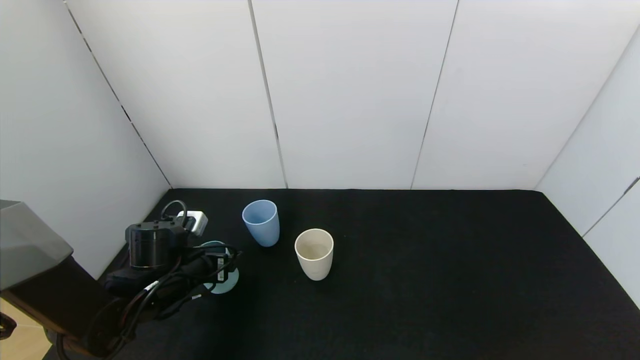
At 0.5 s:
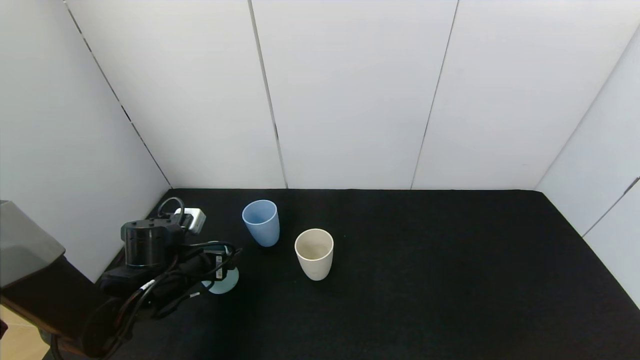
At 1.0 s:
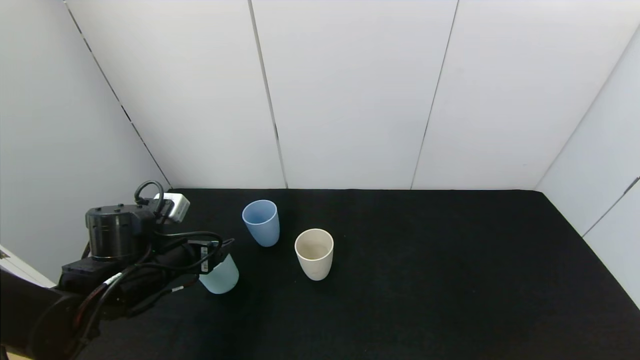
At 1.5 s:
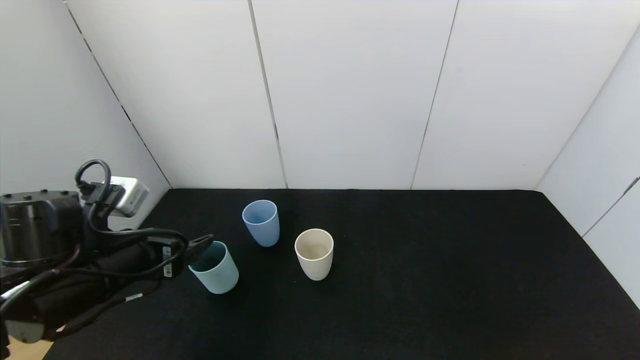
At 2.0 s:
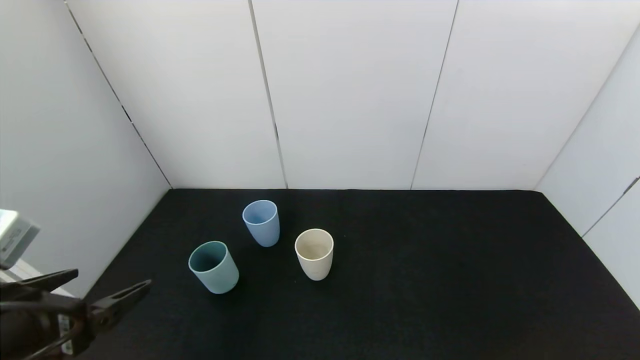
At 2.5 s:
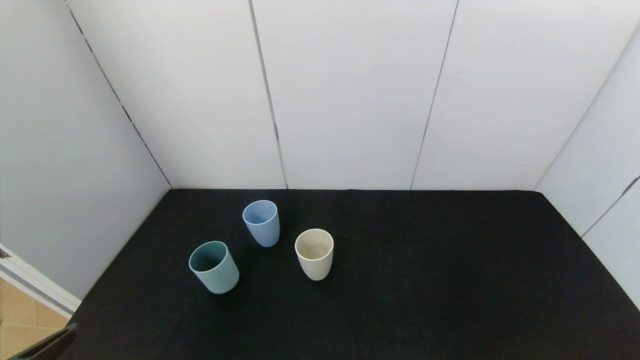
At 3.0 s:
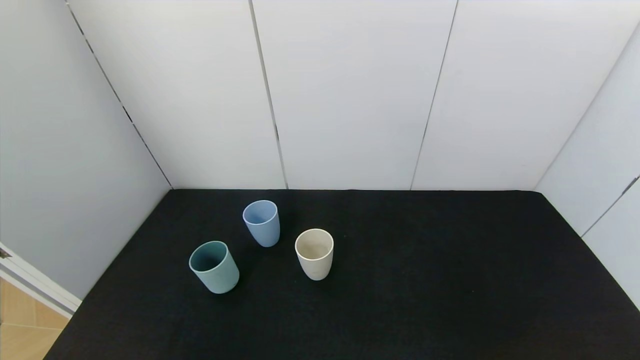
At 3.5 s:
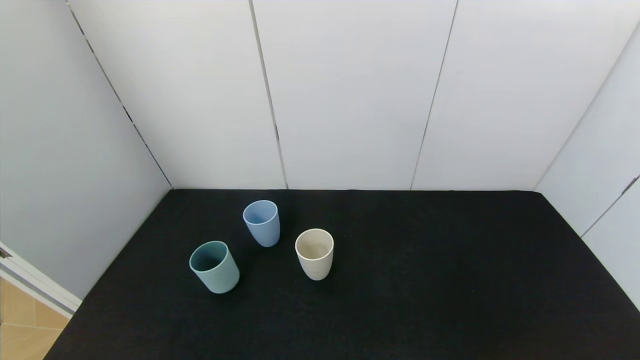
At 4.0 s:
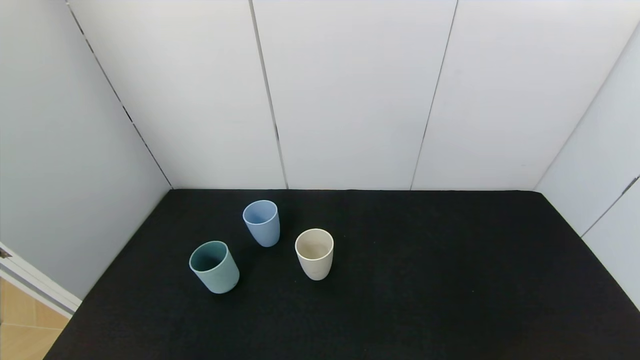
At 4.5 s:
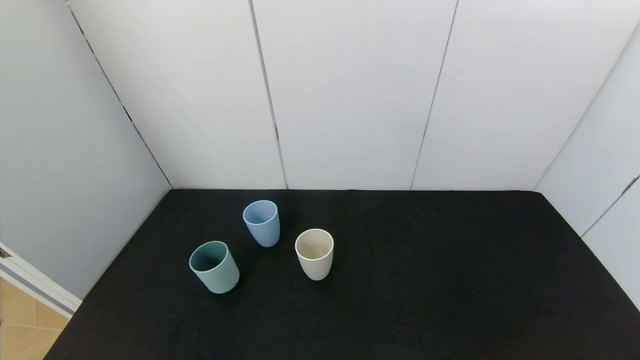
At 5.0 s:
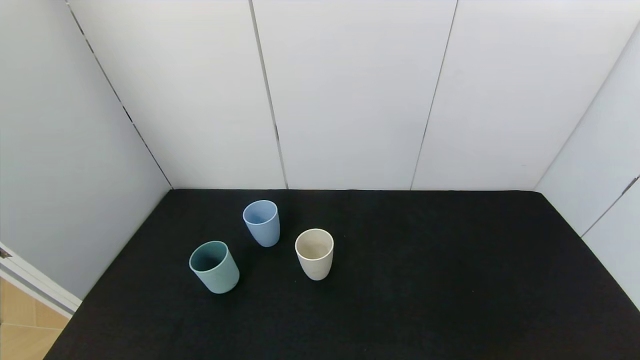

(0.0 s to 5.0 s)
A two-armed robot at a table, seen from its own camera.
Task of the whole recording: use the gripper to pour the water into the other two cups on black table.
0.0 s - 2.5 s: The left gripper moves backward and upward, some 30 cm.

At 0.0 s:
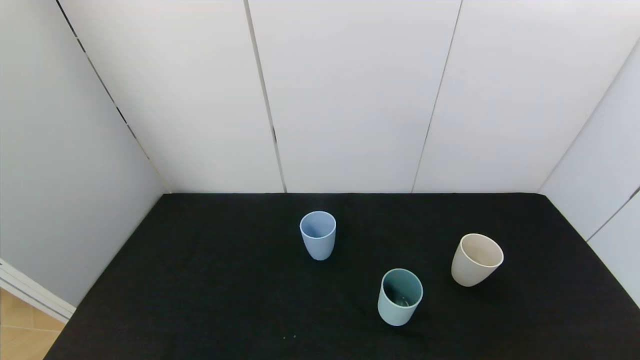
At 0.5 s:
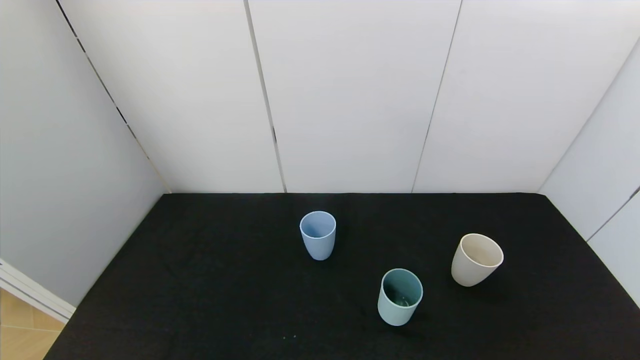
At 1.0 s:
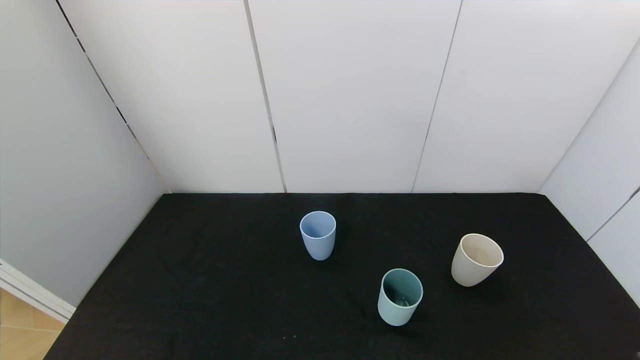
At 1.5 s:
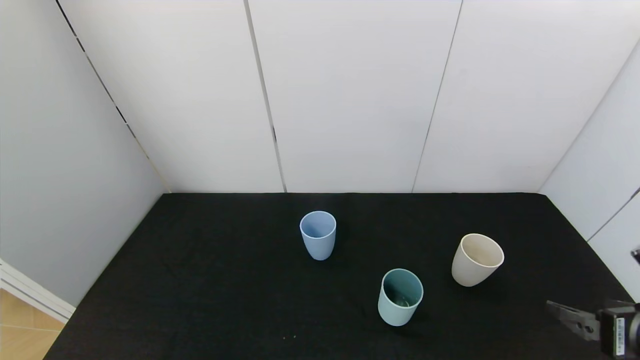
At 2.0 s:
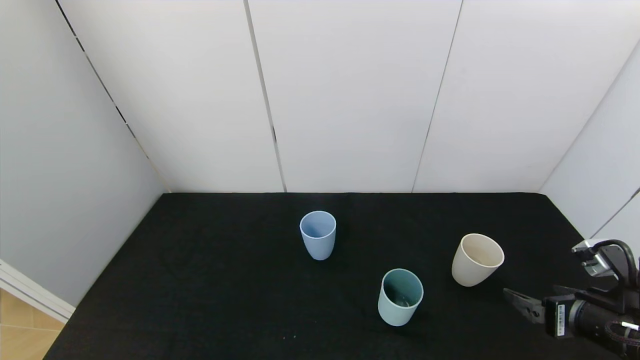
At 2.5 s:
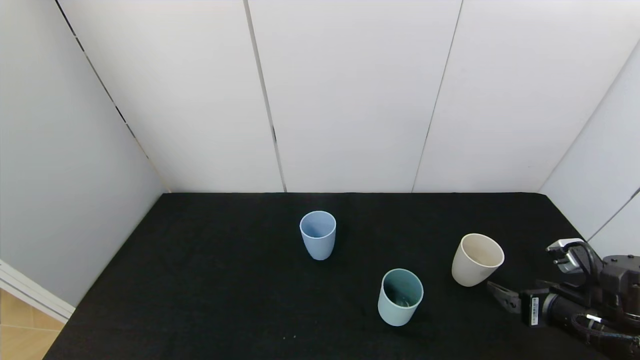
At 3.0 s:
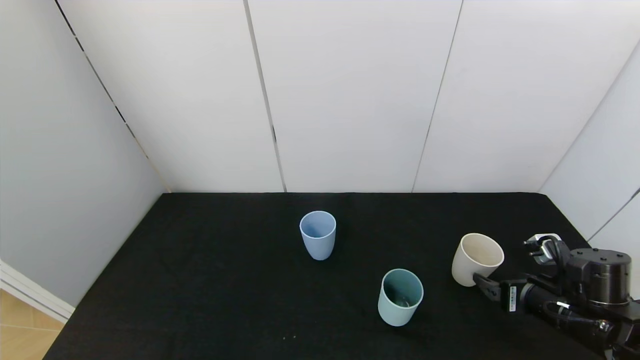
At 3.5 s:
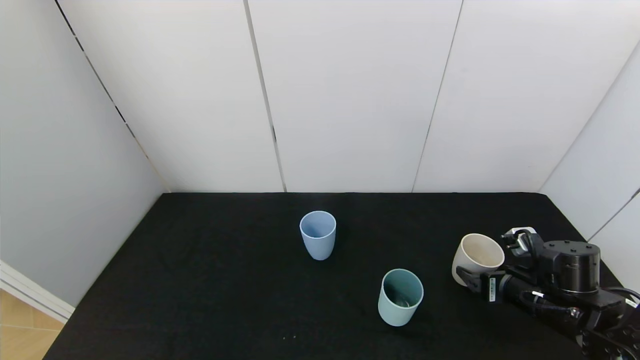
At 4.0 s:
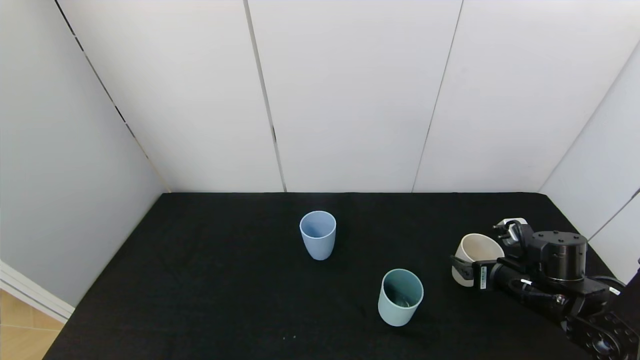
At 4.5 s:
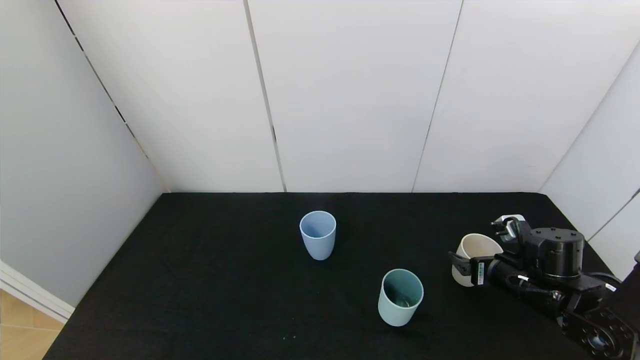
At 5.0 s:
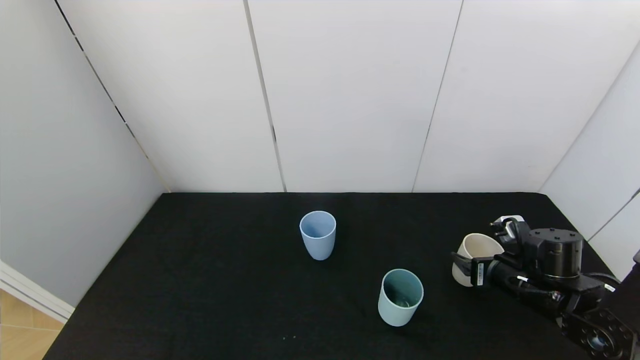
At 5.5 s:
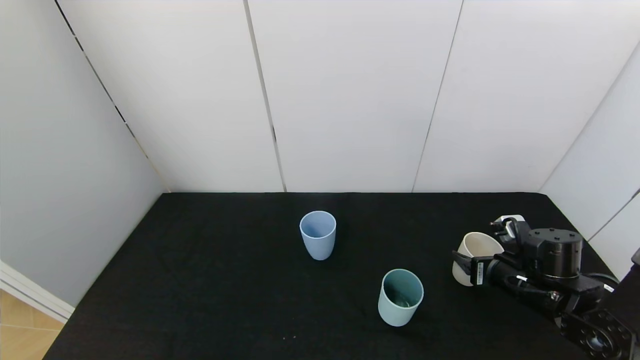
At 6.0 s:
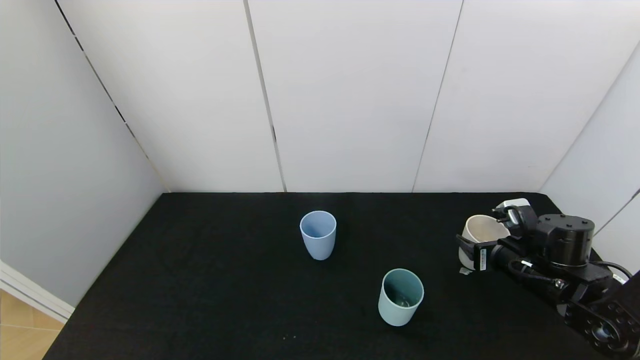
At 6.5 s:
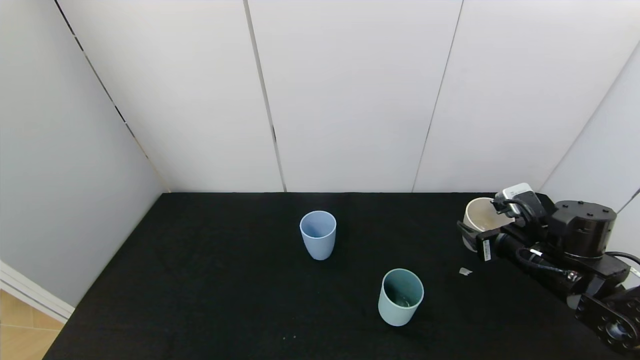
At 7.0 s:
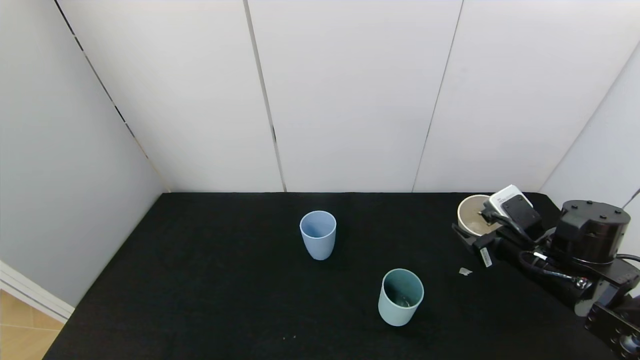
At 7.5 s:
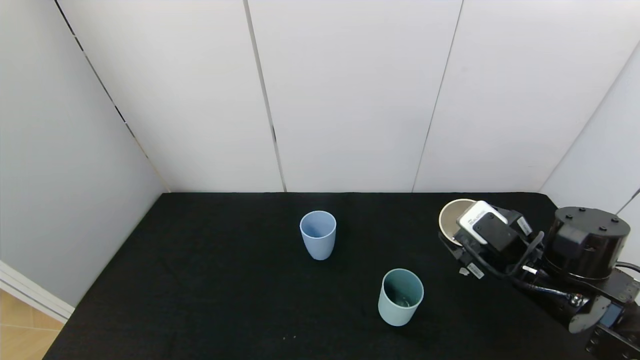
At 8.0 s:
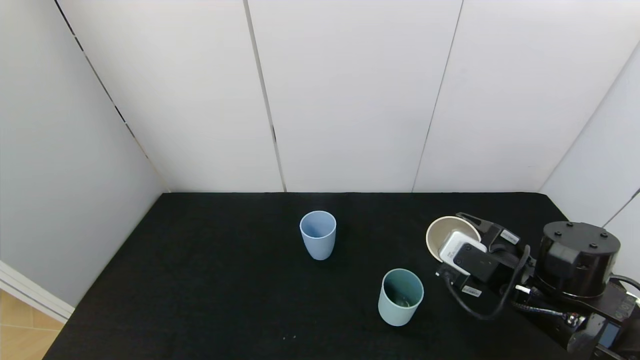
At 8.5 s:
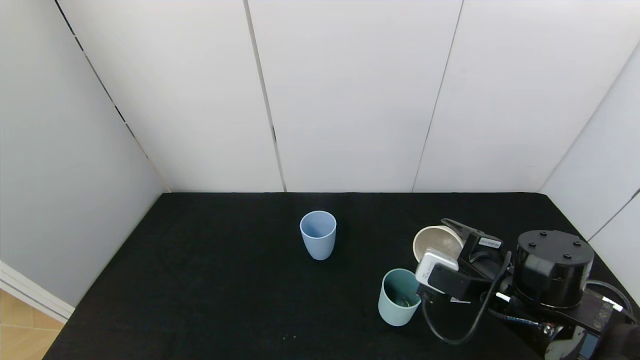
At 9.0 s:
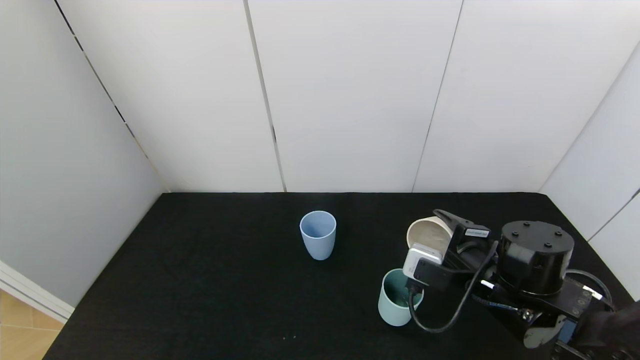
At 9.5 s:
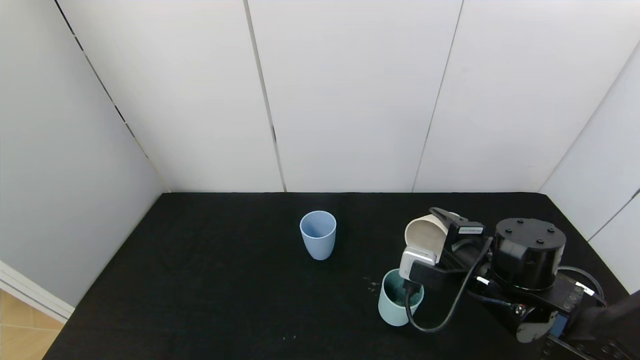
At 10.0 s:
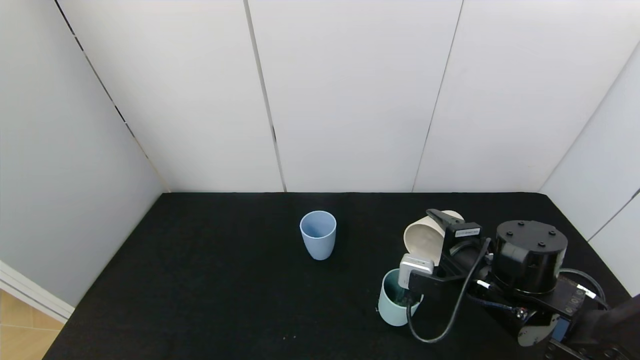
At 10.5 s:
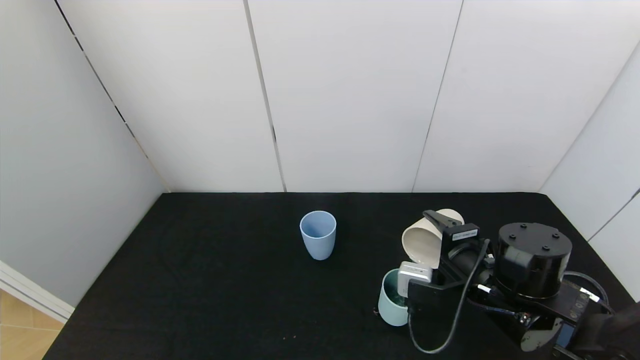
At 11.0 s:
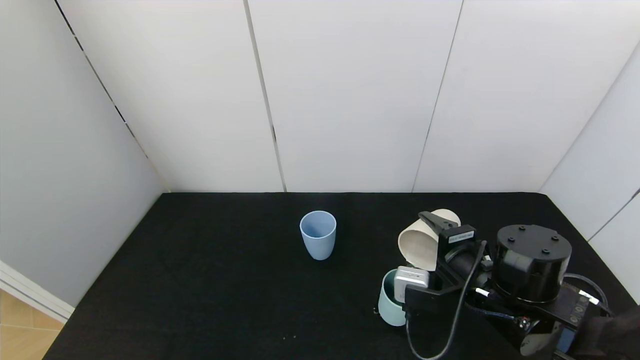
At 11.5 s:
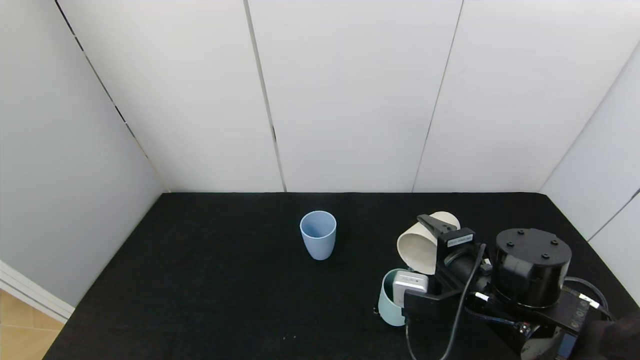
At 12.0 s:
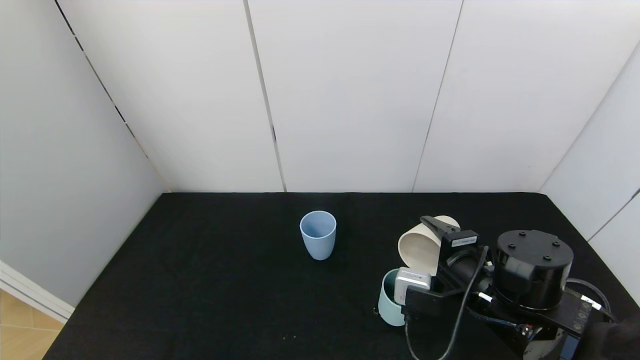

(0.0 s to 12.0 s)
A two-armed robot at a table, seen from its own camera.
Task of the whole recording: use the gripper to pour the water into the other two cups on black table.
Step, 0.0 s - 5.0 s: Grasp the white cup with the right gripper.
0.0 s - 2.0 s: The right gripper shifts about 20 cm forward.
2.0 s - 4.0 s: The right gripper goes some 10 cm forward.
4.0 s - 6.0 s: The right gripper closes its fingers.
6.0 s - 8.0 s: The right gripper shifts some 10 cm to the left and backward.
10.0 s - 12.0 s: The grippers move only a little.

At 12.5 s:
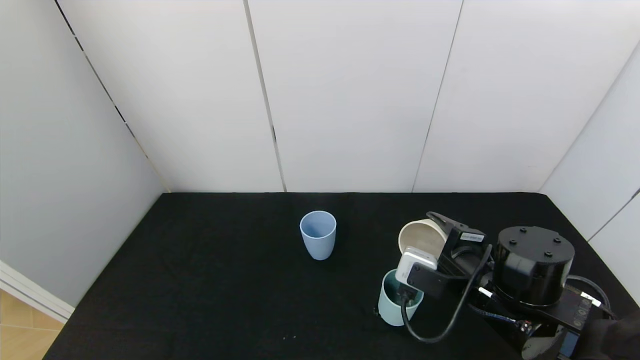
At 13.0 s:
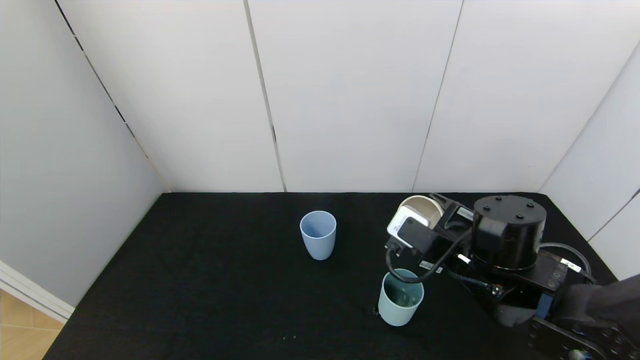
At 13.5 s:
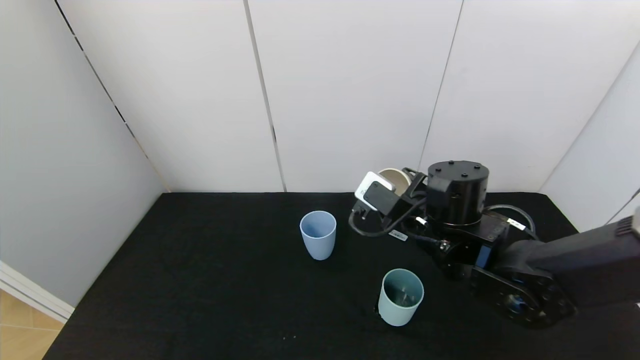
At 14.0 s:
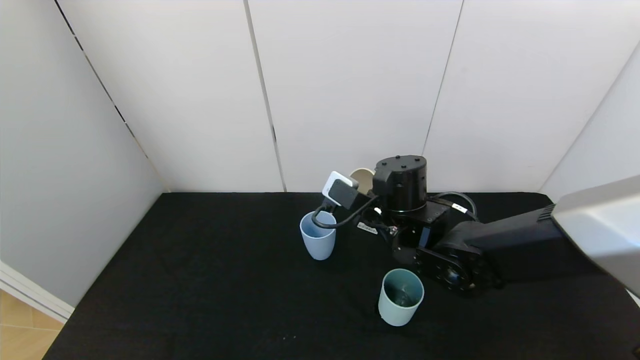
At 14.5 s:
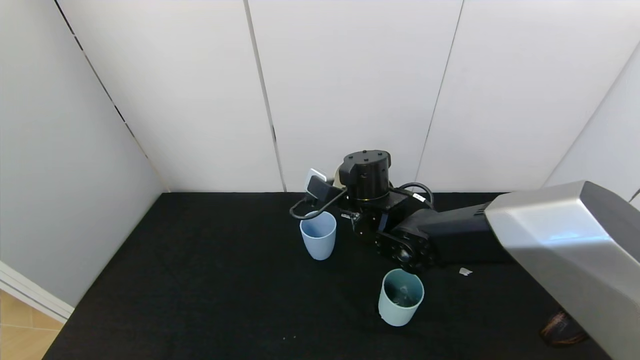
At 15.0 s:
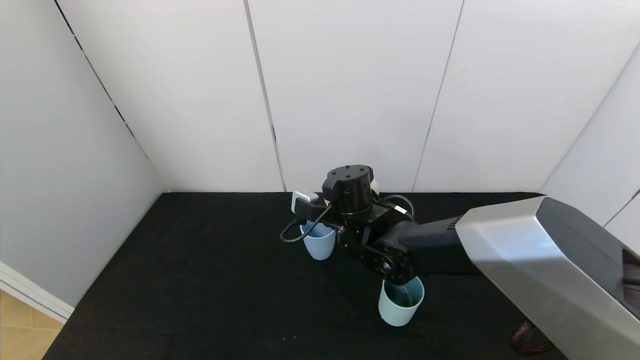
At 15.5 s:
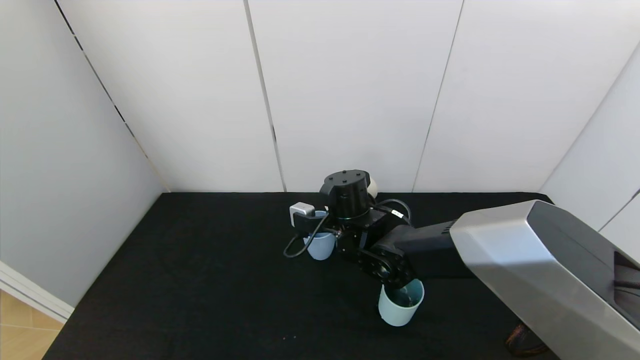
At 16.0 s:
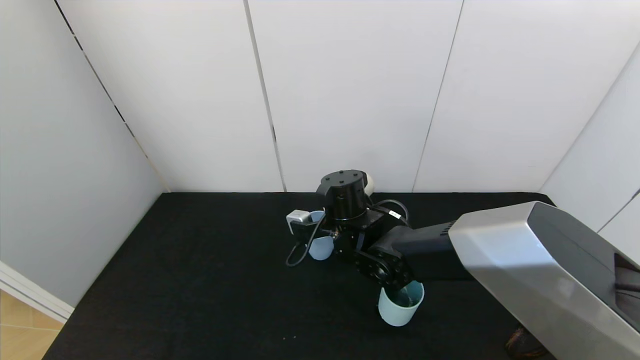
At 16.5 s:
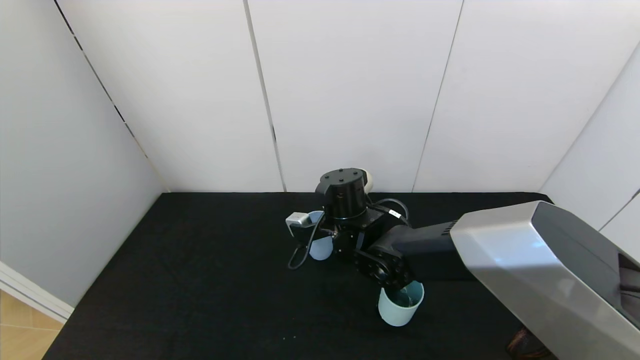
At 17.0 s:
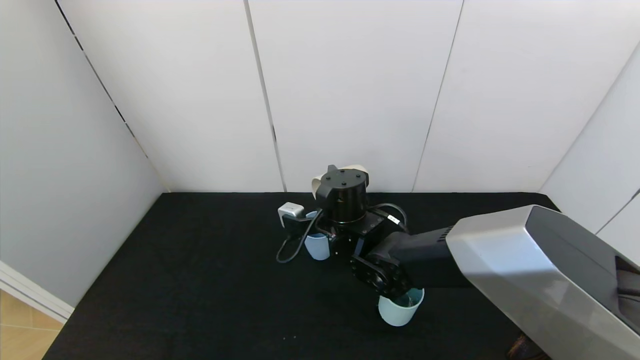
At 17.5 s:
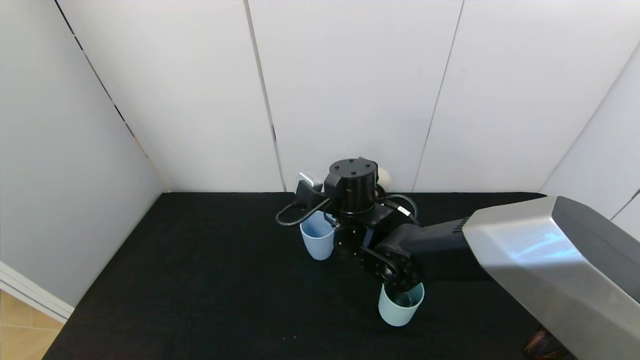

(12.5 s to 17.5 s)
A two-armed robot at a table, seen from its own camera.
Task of the whole recording: use the gripper to pour the water into the other two cups on black table.
Step, 12.5 s - 17.0 s: Pour water from white cup to blue cup with the right gripper.
12.5 s - 15.0 s: The right gripper goes about 20 cm to the left and forward.
